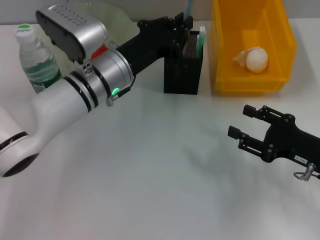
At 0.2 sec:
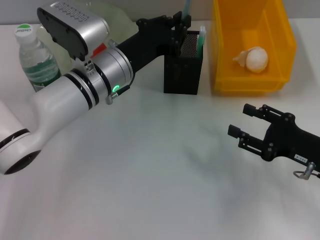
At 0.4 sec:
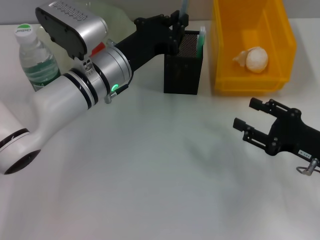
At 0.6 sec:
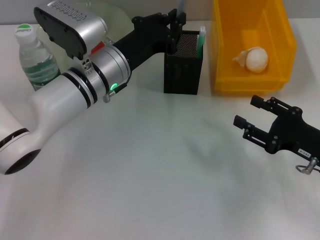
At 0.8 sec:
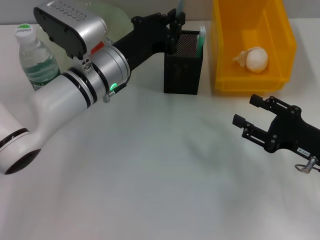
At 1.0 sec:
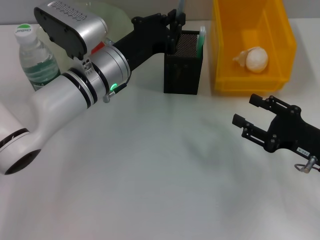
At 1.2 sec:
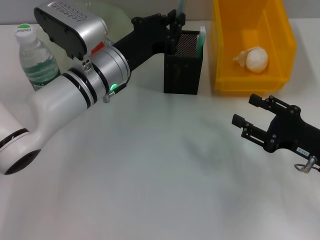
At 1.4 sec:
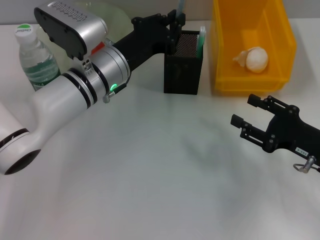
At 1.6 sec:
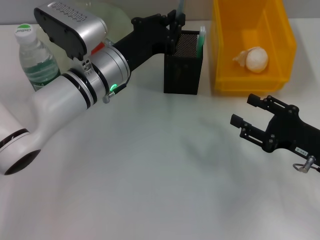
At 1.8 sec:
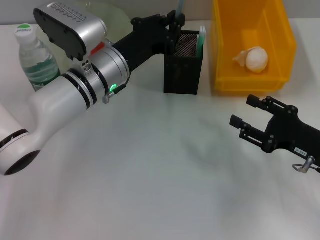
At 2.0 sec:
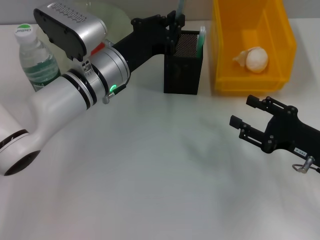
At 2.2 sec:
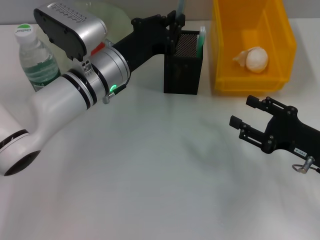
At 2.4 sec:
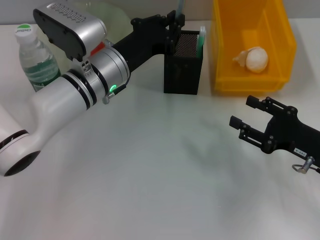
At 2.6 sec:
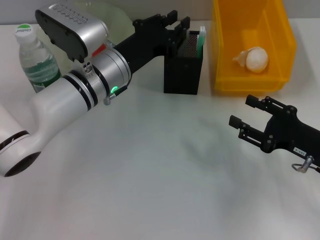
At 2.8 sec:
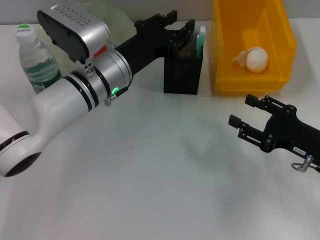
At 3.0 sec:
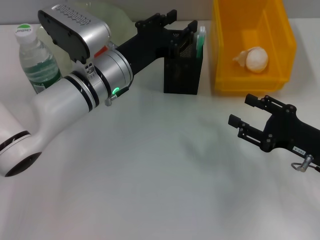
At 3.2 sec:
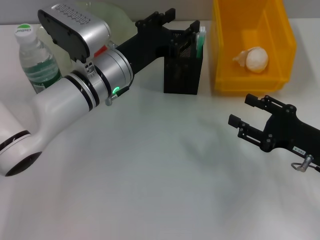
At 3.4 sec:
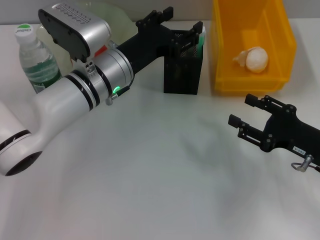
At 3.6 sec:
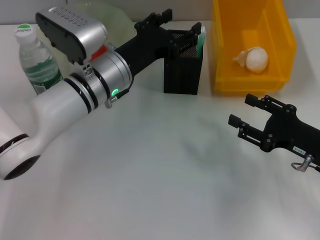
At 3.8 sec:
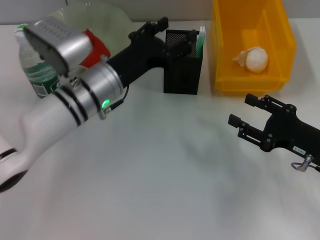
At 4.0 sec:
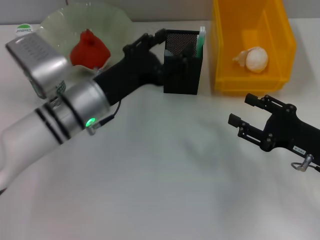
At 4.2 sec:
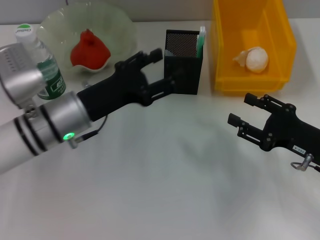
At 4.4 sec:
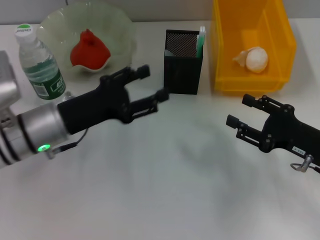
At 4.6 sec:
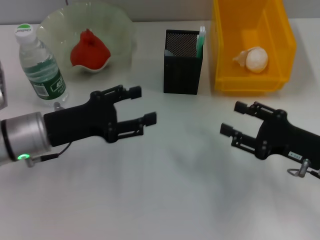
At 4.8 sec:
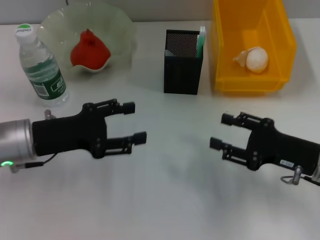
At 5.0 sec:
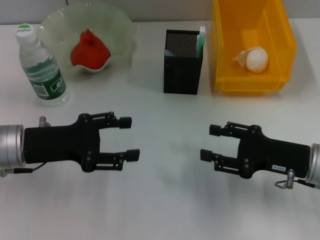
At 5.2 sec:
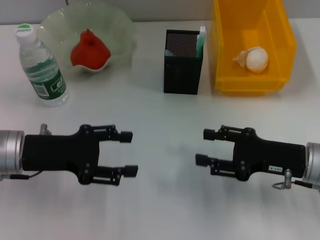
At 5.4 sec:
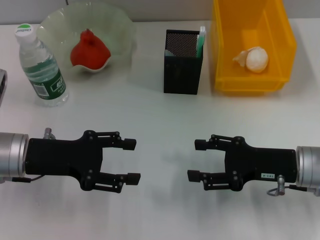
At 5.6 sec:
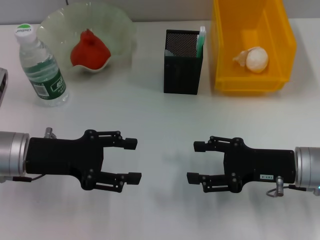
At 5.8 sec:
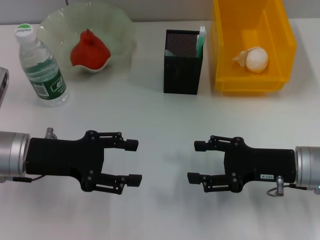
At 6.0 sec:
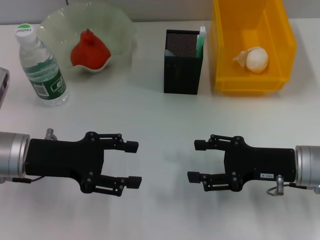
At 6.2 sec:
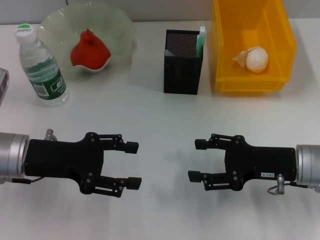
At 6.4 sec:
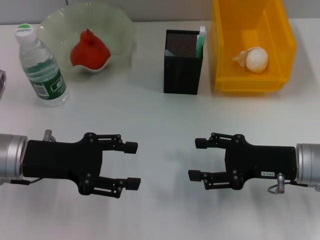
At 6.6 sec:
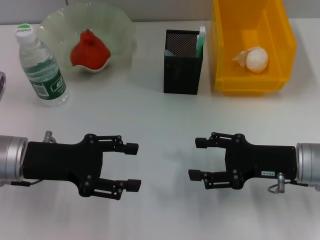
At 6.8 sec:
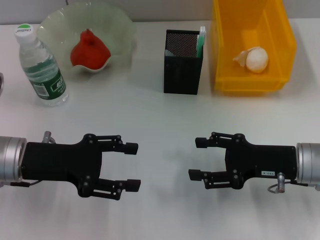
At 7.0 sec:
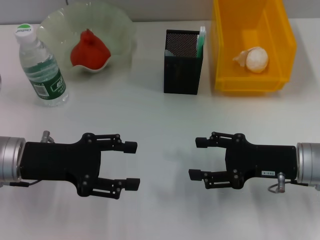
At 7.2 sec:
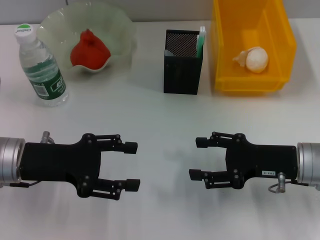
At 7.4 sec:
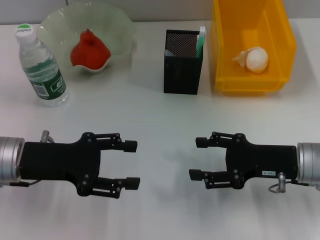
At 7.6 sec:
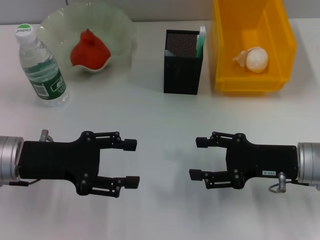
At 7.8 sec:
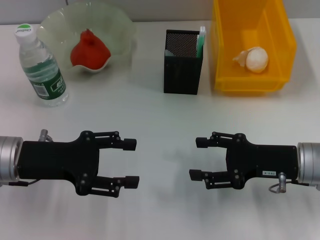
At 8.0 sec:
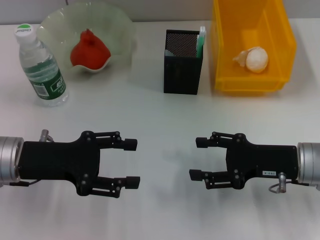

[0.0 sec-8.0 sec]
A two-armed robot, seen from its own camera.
Step, 0.0 sec to 2.8 sec: Place the gray glue into the pen holder with the left hand.
0.0 sec to 1.6 sec: The two grippers keep their place.
1.6 sec to 3.2 sec: The left gripper opens.
3.2 sec to 4.8 sec: The left gripper travels to the left and backward by some 15 cm, and opens its fingers.
4.8 sec to 6.4 sec: The grippers make only small movements.
6.4 sec to 8.0 sec: Both grippers stay about where they are.
